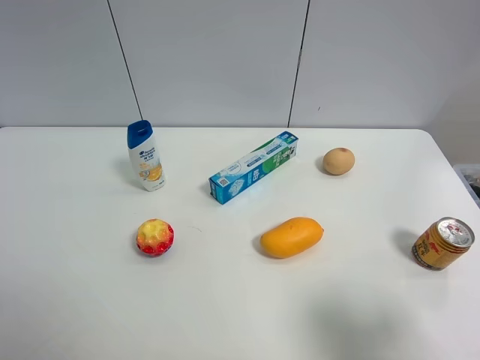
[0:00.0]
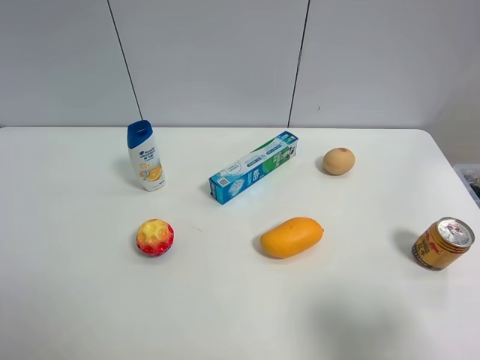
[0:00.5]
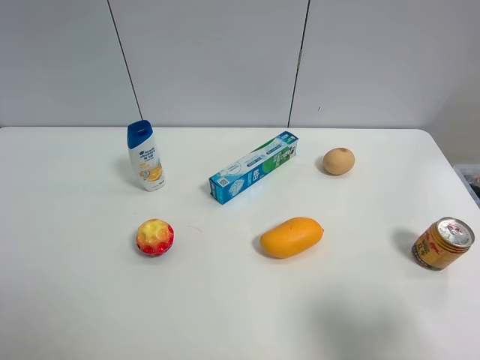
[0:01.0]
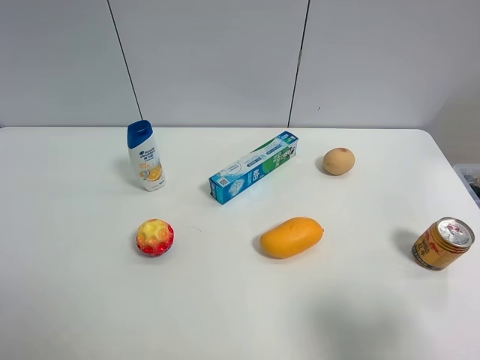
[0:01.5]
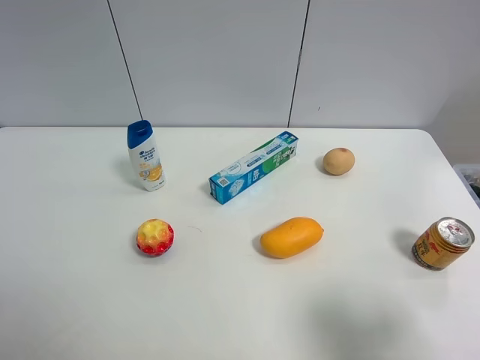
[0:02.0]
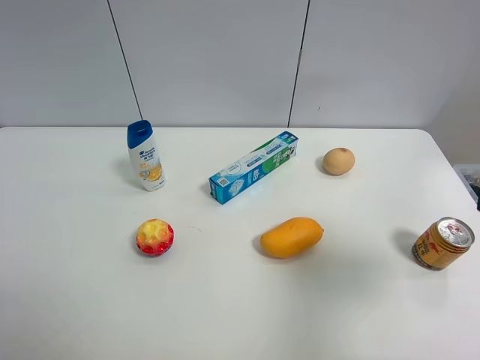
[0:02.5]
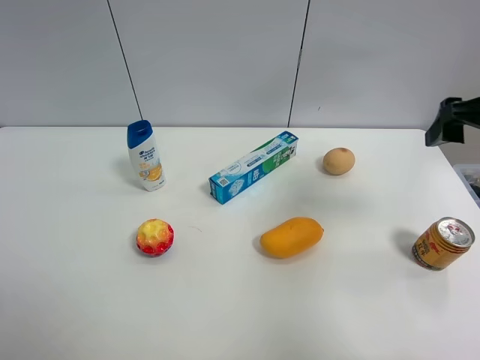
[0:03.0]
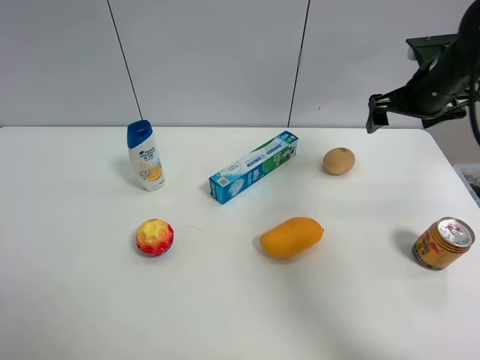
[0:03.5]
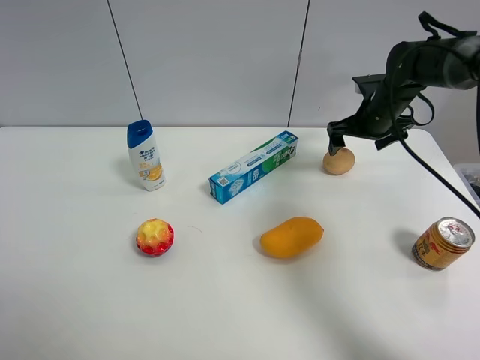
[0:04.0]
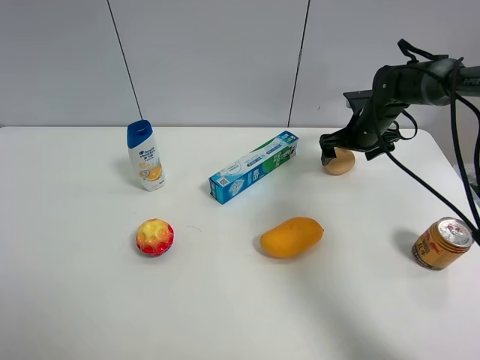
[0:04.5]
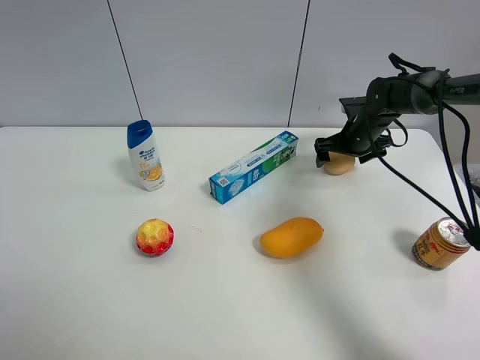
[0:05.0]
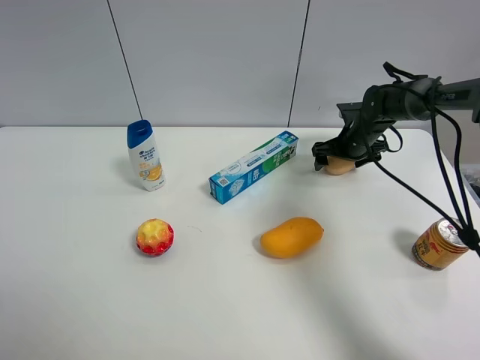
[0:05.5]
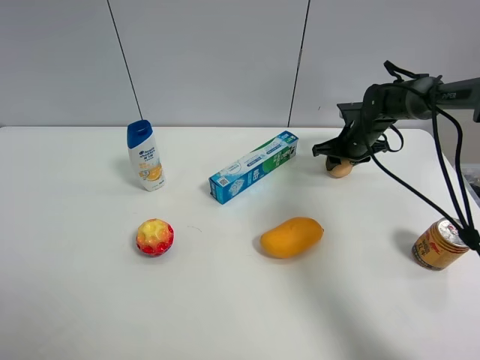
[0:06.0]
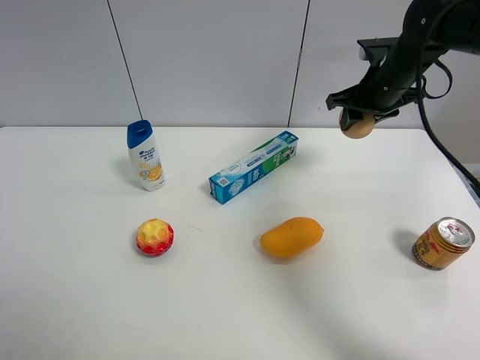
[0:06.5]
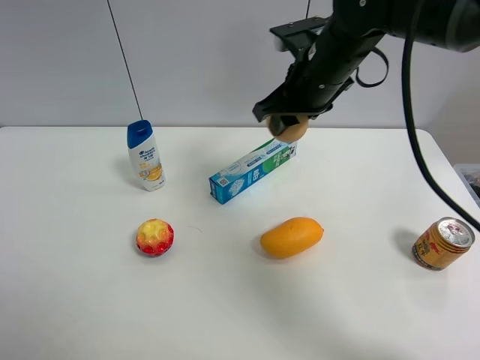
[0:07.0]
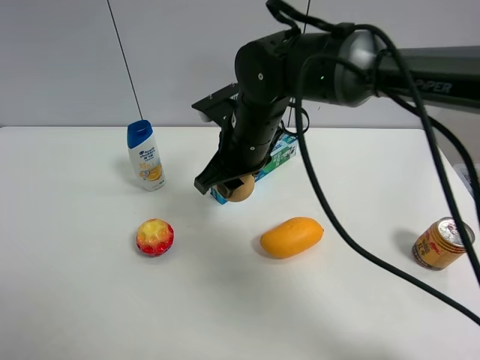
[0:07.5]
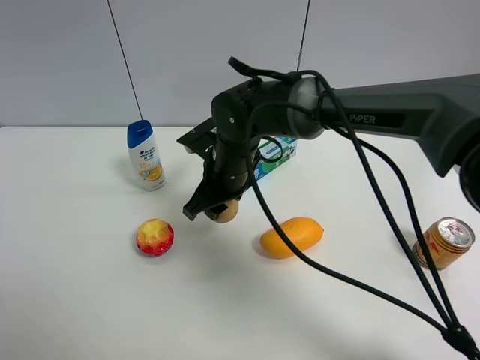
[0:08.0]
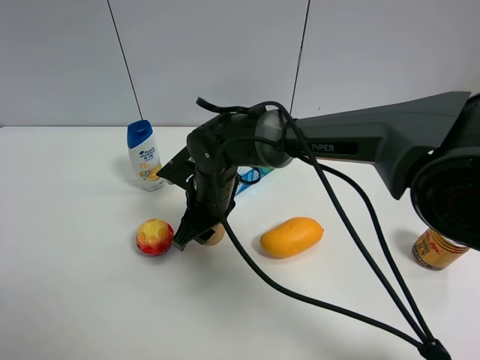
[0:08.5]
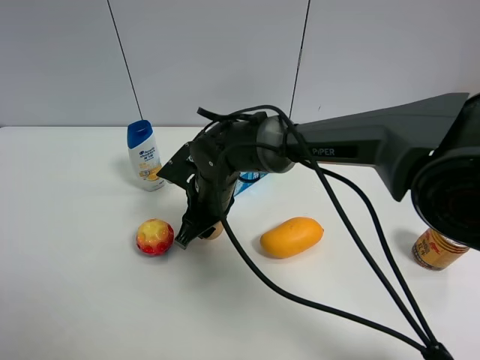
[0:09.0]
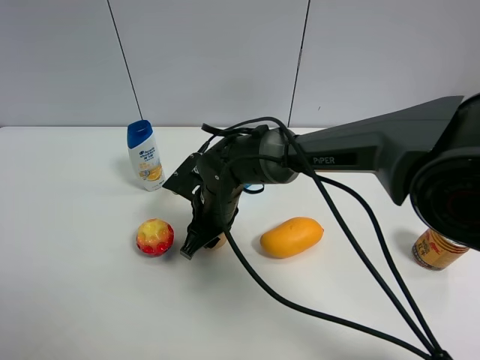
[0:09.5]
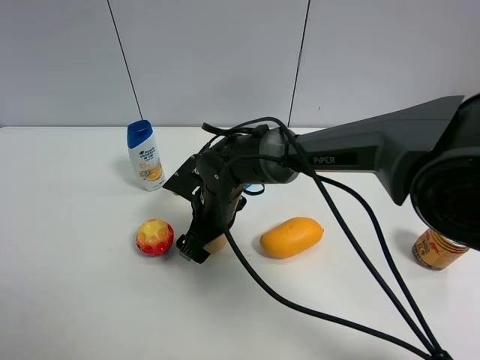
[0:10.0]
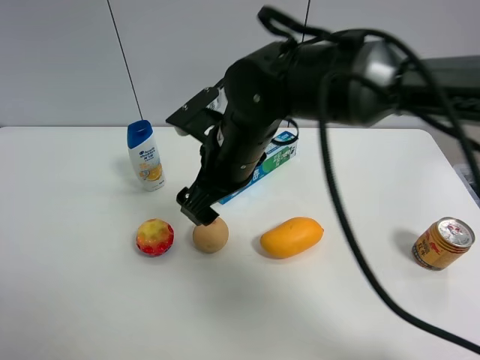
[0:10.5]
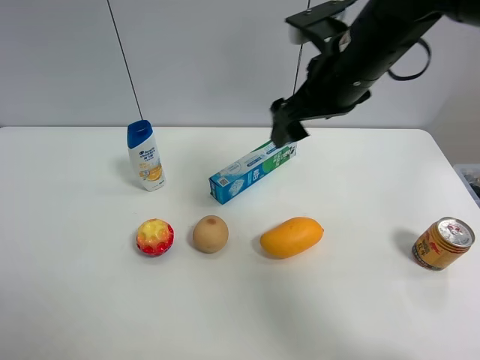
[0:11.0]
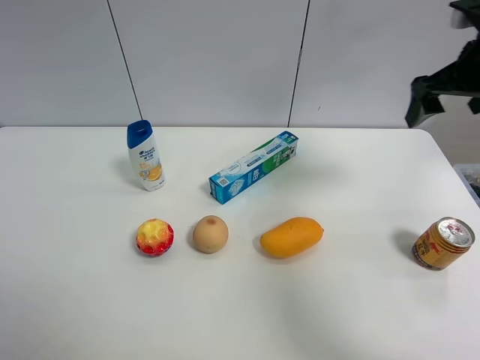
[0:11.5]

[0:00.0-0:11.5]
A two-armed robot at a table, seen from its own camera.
Task of the whole recording: the gripper move the object.
Step, 0:00.0 to 0:05.5: Grasp the egg yolk pastry with the right gripper.
Step, 0:06.0 to 0:10.0: Place the egg yolk pastry on the table with the right gripper.
0:00.0 to 0:02.0: Both grippers stay put.
0:02.0 to 0:04.0: The right gripper travels forward by some 40 cm.
0:04.0 to 0:06.0: The right gripper is displaced downward by about 5 cm, and closes up.
0:06.0 to 0:07.5: The right gripper shifts roughly 30 cm to the left, backward and upward.
0:07.5 to 0:09.5: The right gripper shifts some 10 cm downward.
0:09.5 to 0:11.5: The right gripper travels to the right and upward by about 40 cm, and opens its fingers.

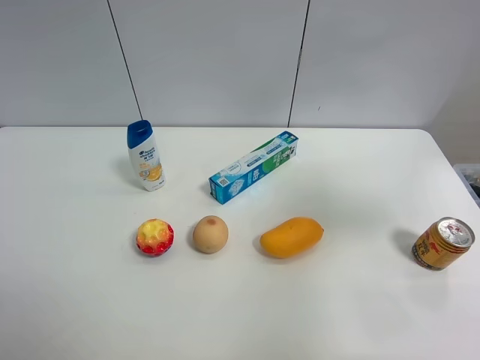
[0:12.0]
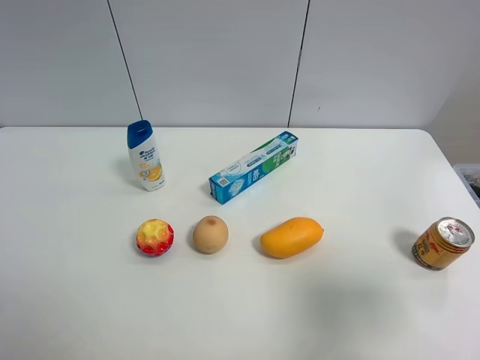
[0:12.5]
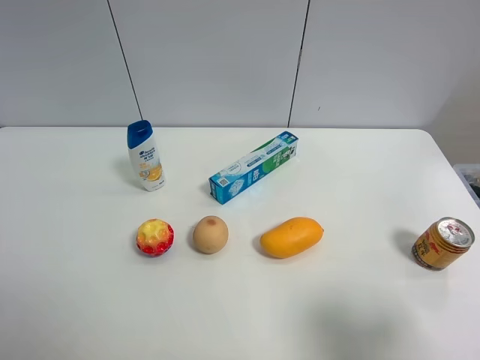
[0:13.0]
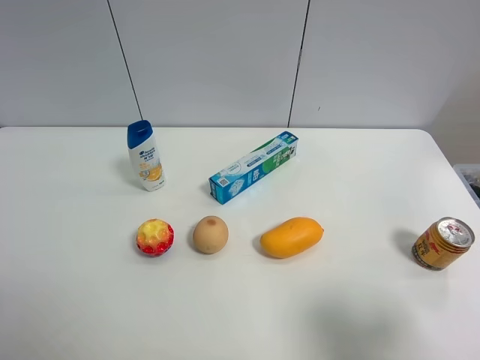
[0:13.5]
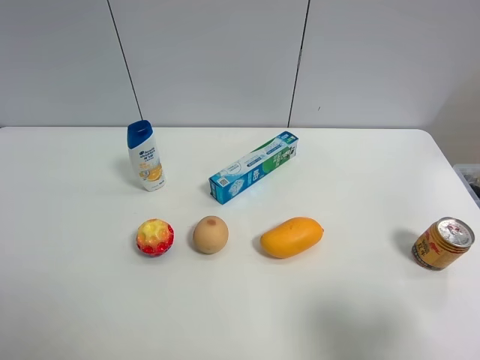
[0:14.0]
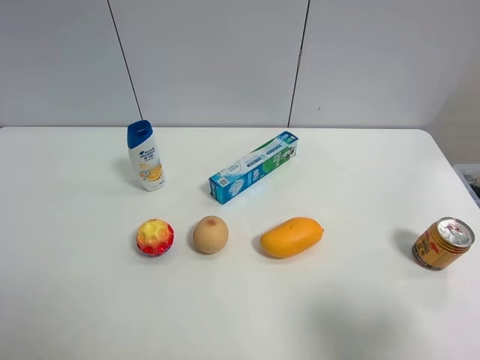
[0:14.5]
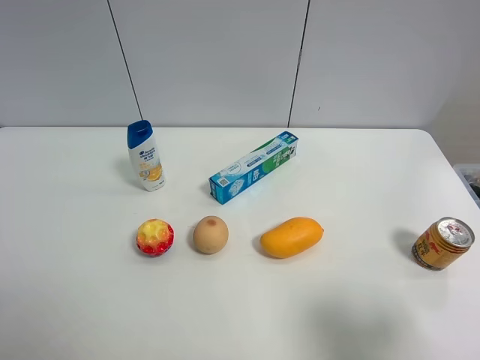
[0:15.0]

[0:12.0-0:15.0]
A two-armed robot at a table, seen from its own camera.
Task of the whole recording: the gripper move the object.
0:12.0 to 0:13.5: The right gripper heads backward and downward, covering approximately 20 cm.
0:13.5 to 0:15.0: Both grippers stay about where they are.

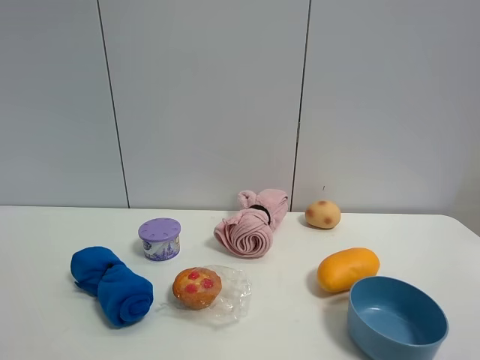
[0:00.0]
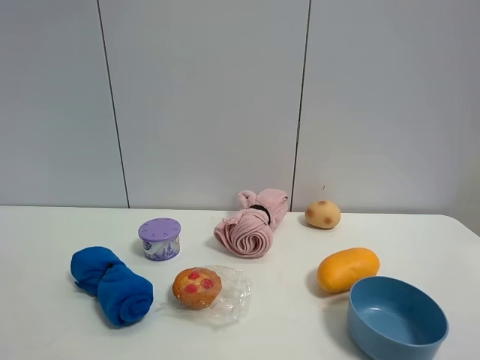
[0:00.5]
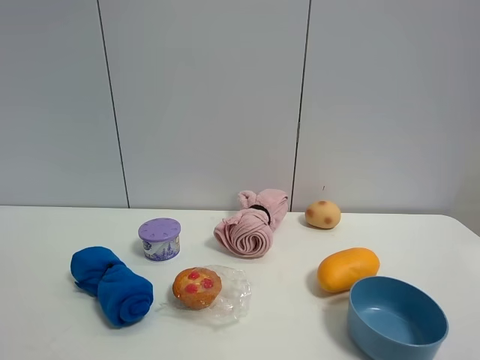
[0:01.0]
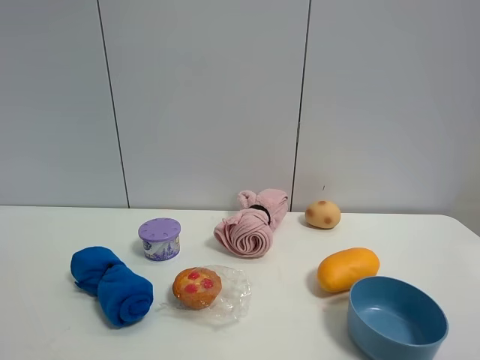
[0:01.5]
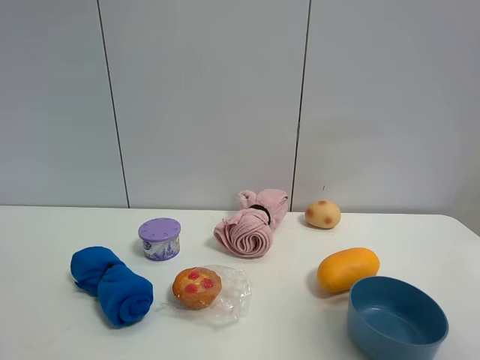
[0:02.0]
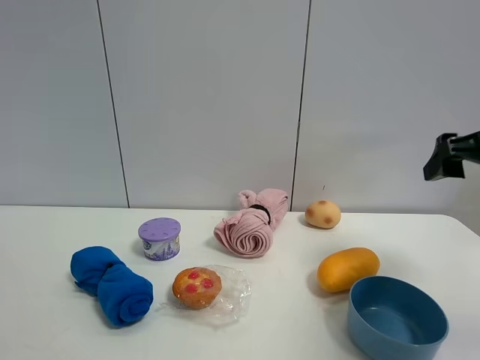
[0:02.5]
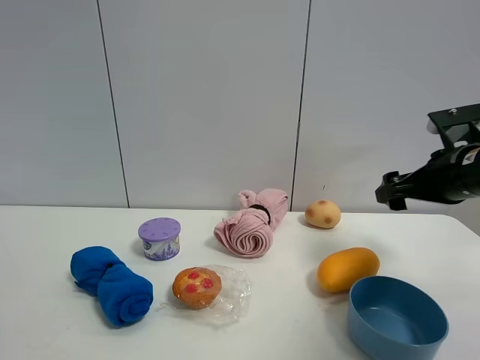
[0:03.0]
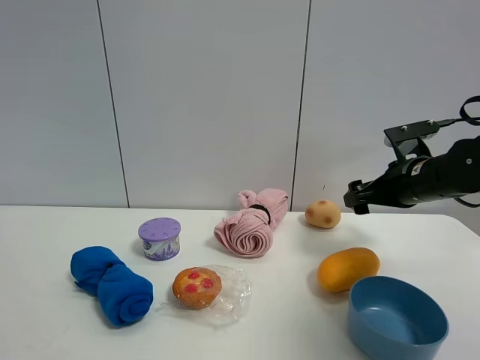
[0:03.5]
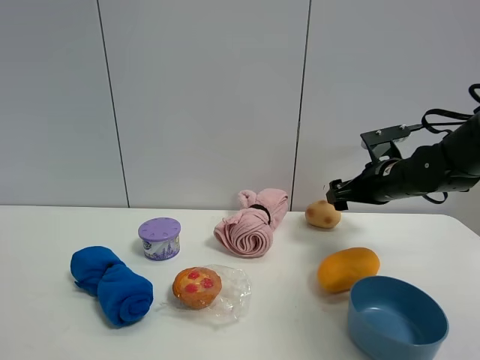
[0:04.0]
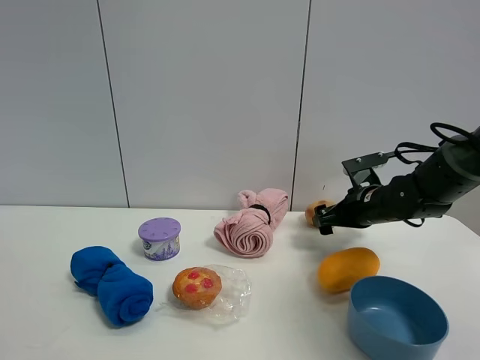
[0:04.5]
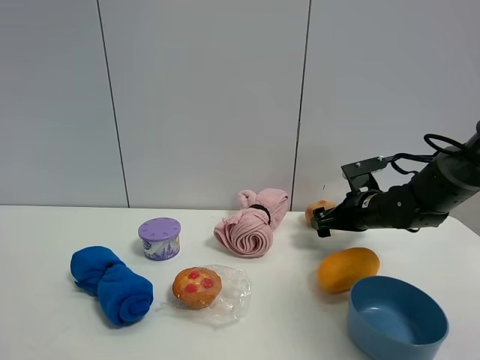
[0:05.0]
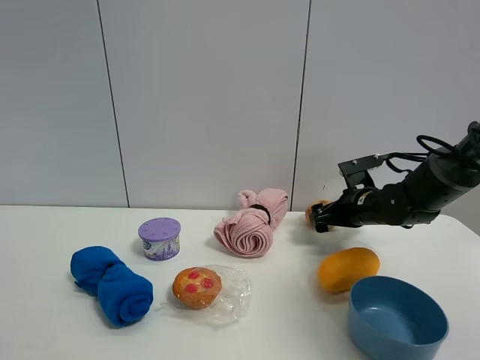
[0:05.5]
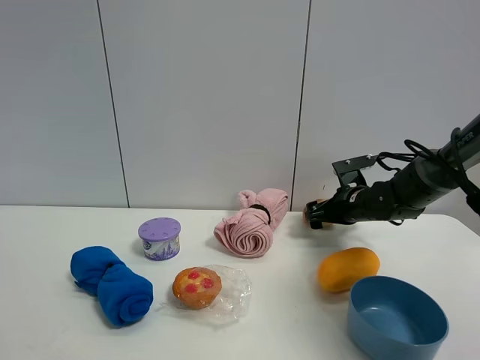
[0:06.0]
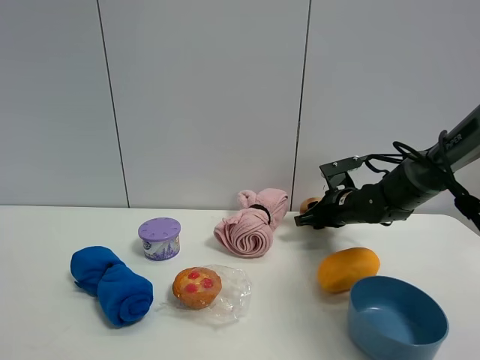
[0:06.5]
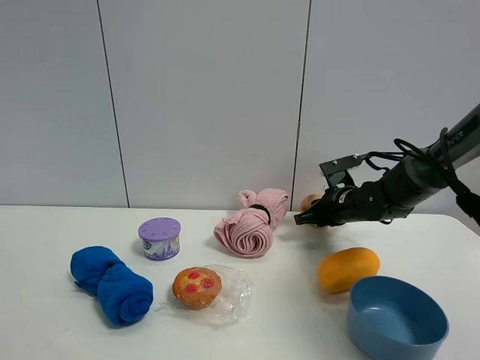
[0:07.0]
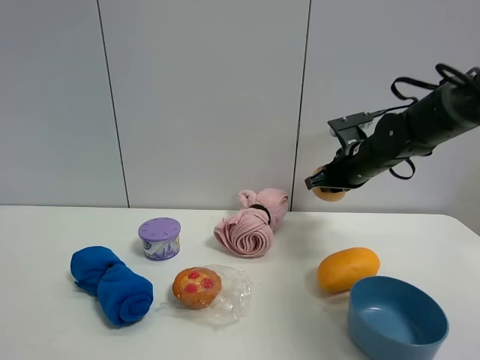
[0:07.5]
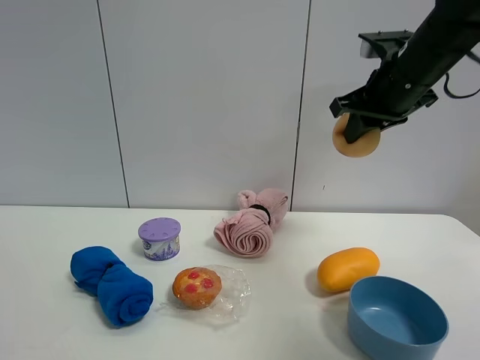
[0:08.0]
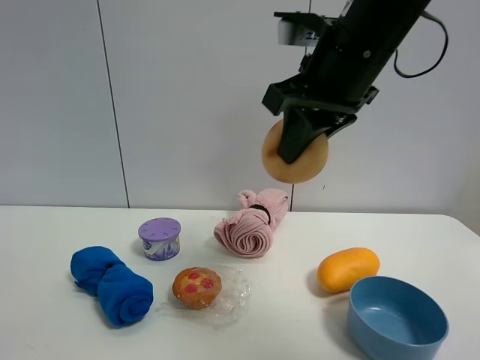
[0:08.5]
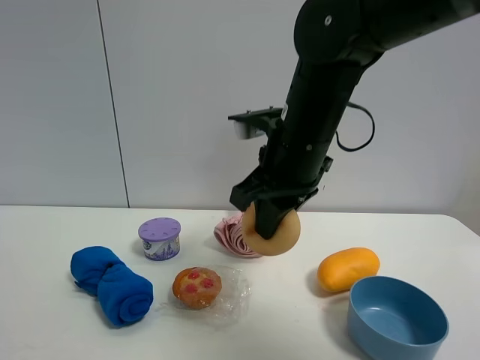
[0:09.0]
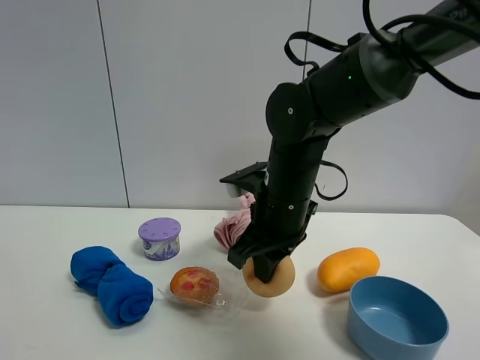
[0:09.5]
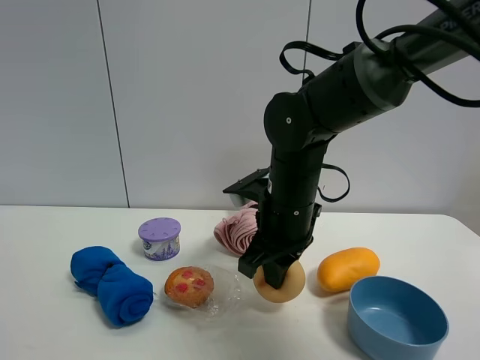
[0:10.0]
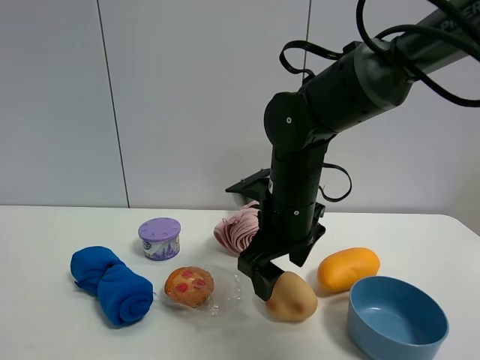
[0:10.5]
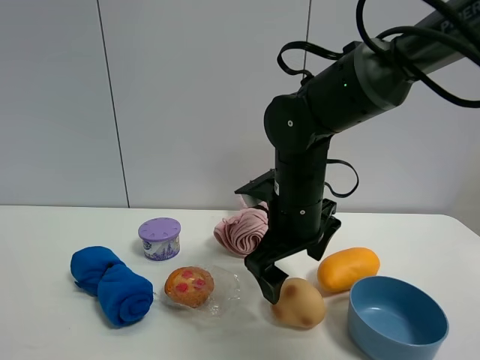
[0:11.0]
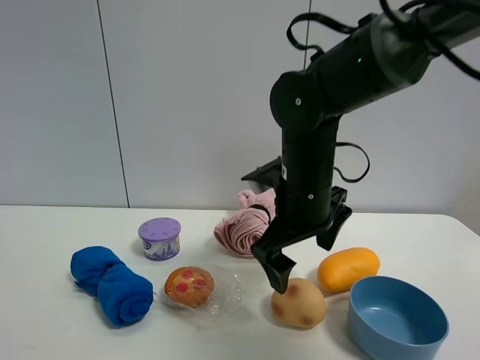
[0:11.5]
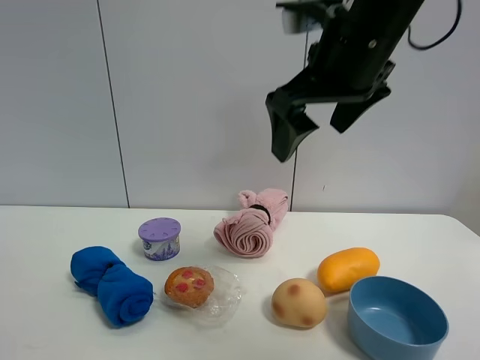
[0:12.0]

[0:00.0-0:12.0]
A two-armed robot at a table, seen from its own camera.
Task of the whole recording: the gripper move the object.
Step, 0:00.0 to 0:06.5: Grasp the egg yolk pastry with the right gripper.
Step, 0:07.0 to 0:10.0: Place the egg yolk pastry on the table with the right gripper.
0:00.0 to 0:02.0: The right gripper shifts roughly 15 cm forward and upward.
0:02.0 to 0:04.0: The right gripper goes some 40 cm forward and downward.
0:04.0 to 0:06.0: The right gripper moves downward, some 5 cm.
0:06.0 to 0:08.0: The right gripper travels upward and backward by some 25 cm, and closes.
0:08.0 to 0:10.0: The right gripper shifts approximately 20 cm downward and to the left.
0:10.0 to 0:12.0: The right gripper travels upward by about 20 cm, and opens.
